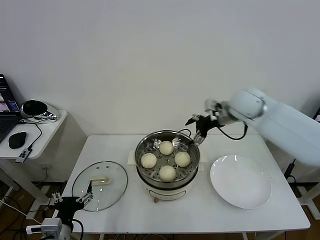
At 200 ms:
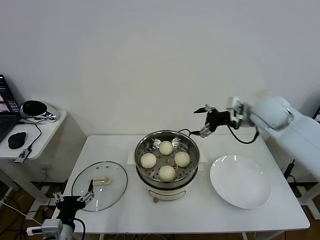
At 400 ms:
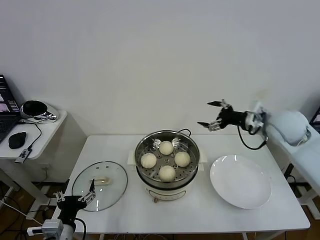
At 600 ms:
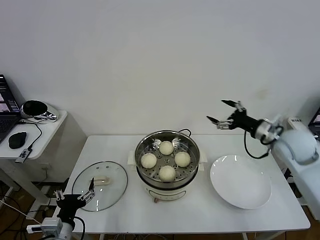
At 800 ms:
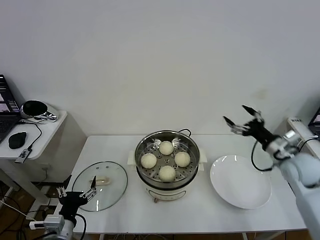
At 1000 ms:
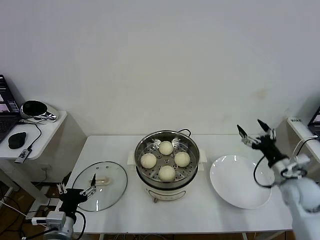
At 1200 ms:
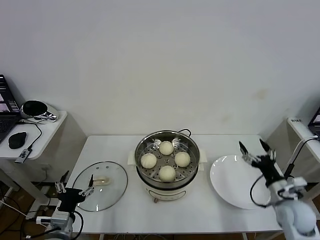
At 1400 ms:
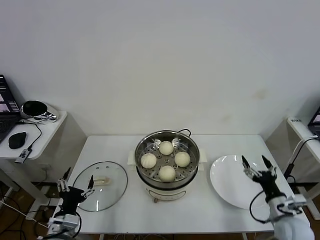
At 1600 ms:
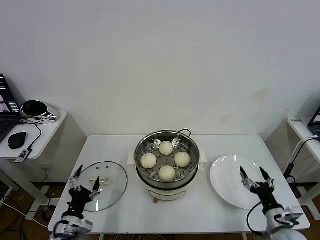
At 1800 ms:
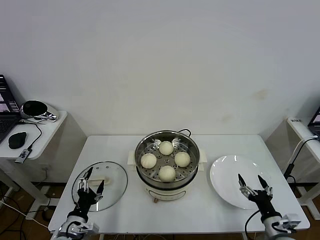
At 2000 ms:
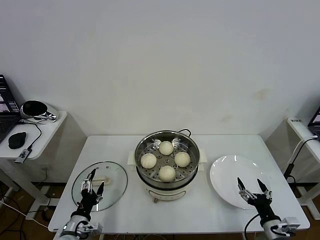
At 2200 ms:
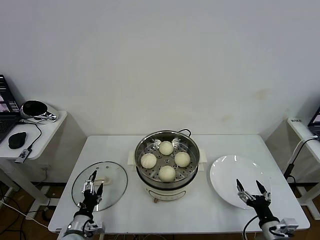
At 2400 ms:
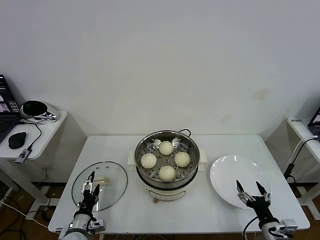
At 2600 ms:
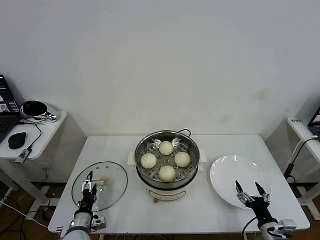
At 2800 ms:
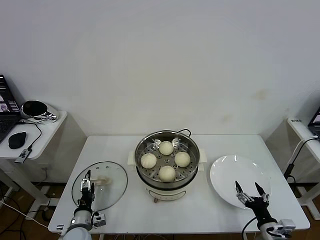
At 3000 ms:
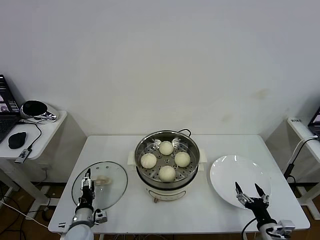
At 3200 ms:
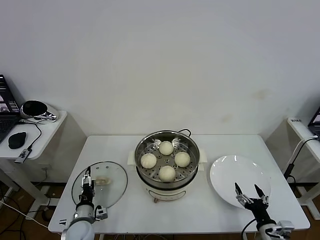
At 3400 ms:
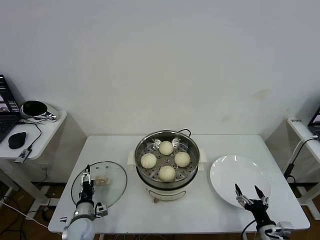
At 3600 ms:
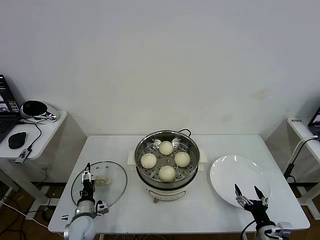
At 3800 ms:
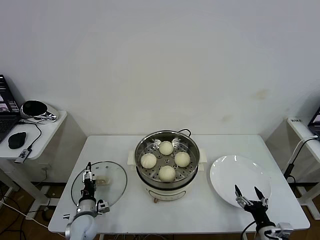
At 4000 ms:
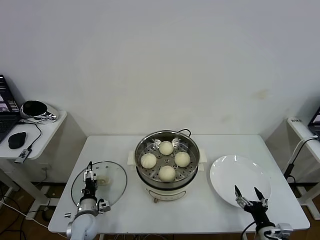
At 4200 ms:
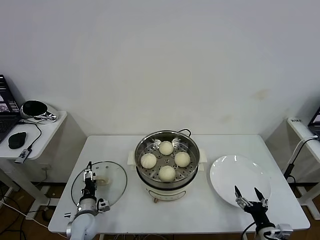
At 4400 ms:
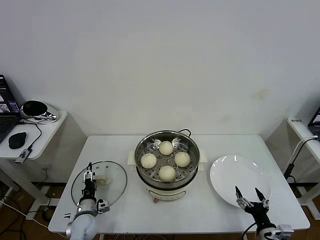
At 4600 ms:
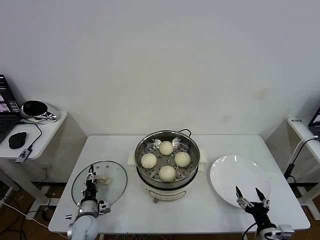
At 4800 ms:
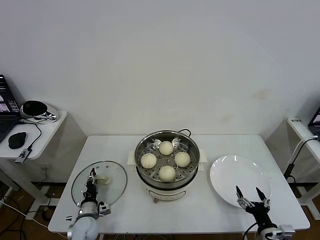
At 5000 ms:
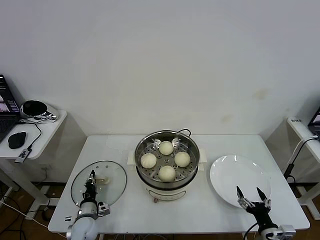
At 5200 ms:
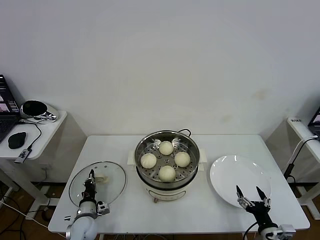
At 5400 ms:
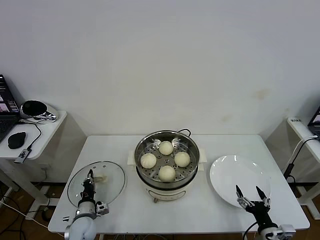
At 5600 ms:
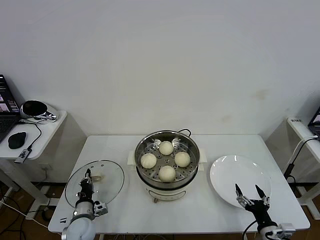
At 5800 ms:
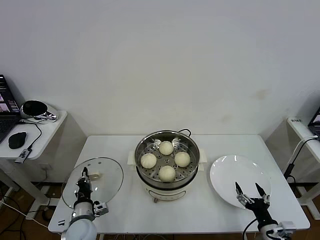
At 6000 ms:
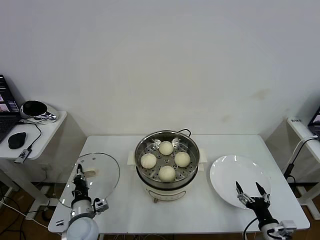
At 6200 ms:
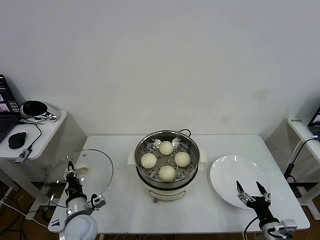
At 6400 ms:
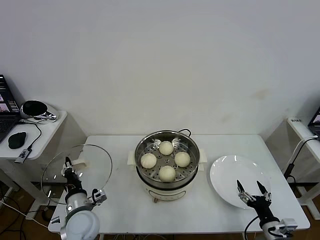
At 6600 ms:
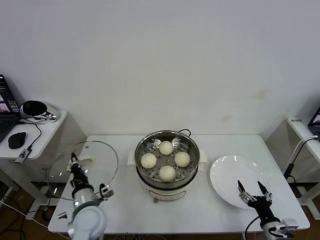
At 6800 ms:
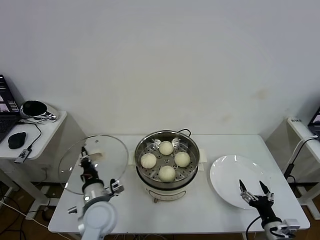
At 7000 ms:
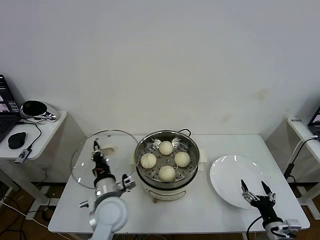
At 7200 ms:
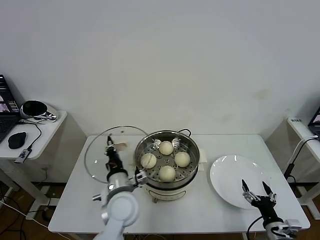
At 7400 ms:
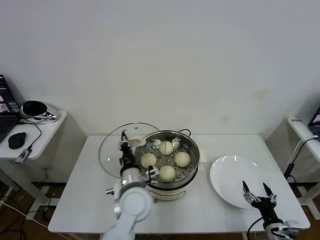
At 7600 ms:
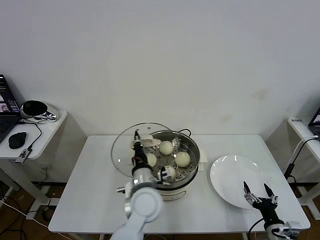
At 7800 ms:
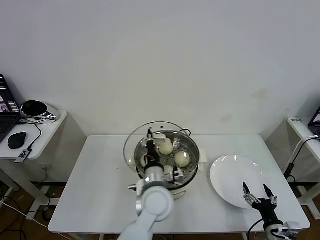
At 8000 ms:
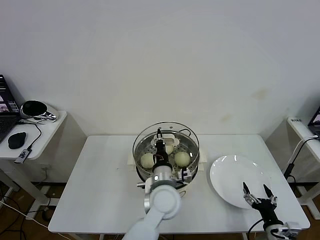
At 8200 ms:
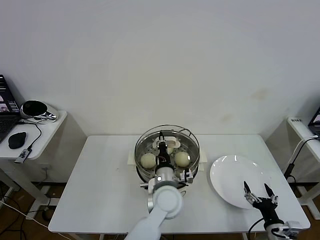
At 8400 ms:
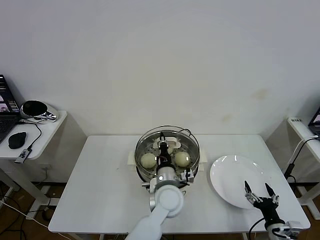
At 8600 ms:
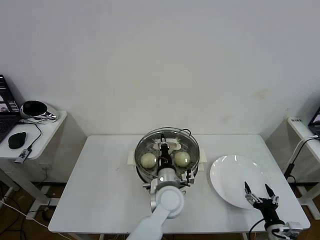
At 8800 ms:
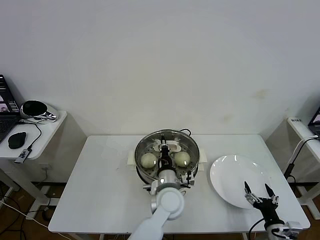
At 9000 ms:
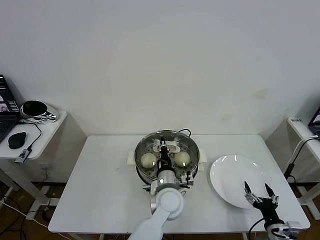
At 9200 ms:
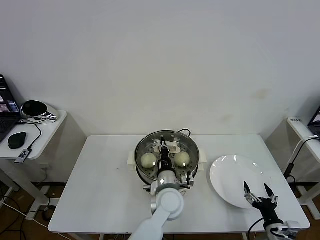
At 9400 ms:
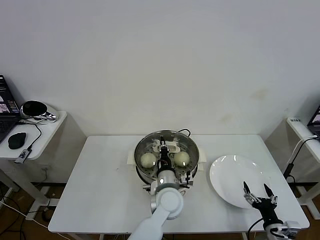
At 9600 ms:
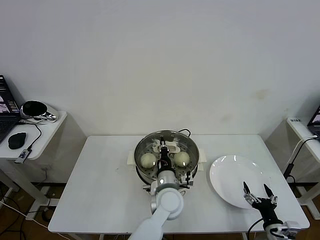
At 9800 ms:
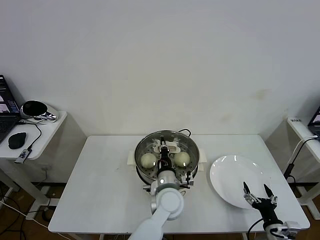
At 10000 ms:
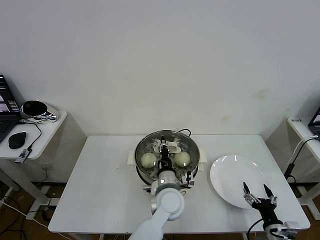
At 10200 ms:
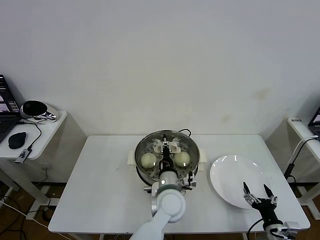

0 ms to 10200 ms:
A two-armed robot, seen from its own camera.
Task of the whole recording: take steamed baozi put them in steamer then cover it.
Step, 0 ms to 5200 ms: Grasp the pot lid with left gripper.
Step, 5400 ms to 9600 ms: Place the pot lid on the steamer with left gripper.
0 ms to 1400 ms: The right gripper travels downward, backward and to the right by some 40 cm.
1400 ms to 3000 ms: The left gripper moves downward and forward, roughly 15 cm, while the right gripper is displaced backward and downward by roughly 10 cm.
3000 ms to 4400 ms: The left gripper moves some 5 cm.
4400 ms to 5800 ms: The left gripper heads upward, covering roughly 5 cm, and closes.
5800 ms to 7200 ms: The left gripper is displaced to the right and upward by some 20 cm.
7200 ms to 8800 ms: The left gripper goes about 15 cm to the right.
8800 ms to 10200 ms: The left gripper opens up.

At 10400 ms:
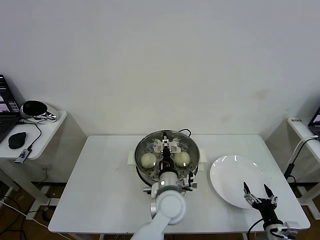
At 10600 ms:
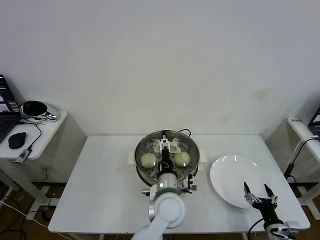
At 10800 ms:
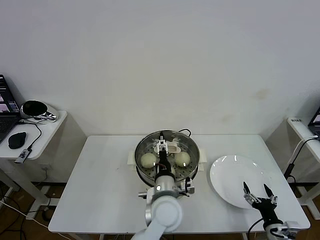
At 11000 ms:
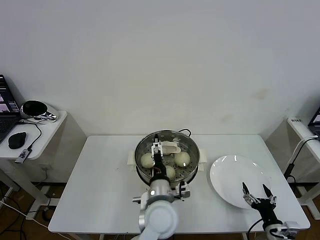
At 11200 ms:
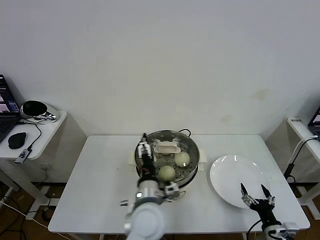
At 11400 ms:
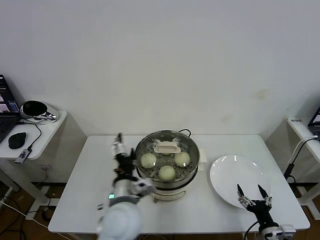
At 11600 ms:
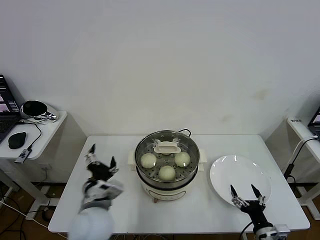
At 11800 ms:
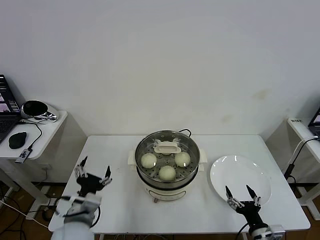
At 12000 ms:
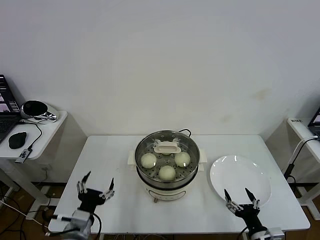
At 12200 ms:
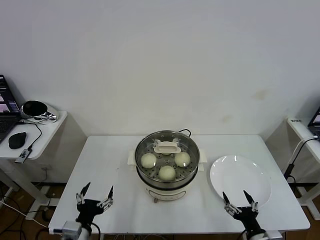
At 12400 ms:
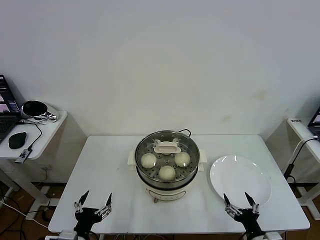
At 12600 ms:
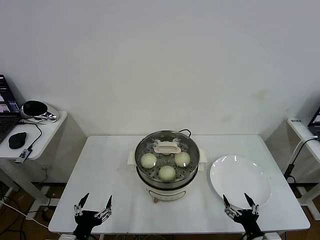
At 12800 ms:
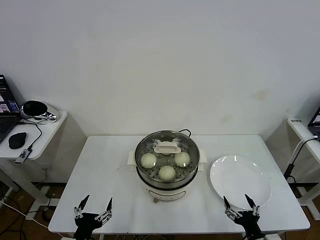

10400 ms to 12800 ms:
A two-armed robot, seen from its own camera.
Task of the whole recording: take steamed baozi put them in steamer then cover it.
10400 ms to 11600 ms: The left gripper shifts about 15 cm to the left.
11600 ms to 12800 ms: The left gripper shifts roughly 20 cm backward, to the left and downward.
